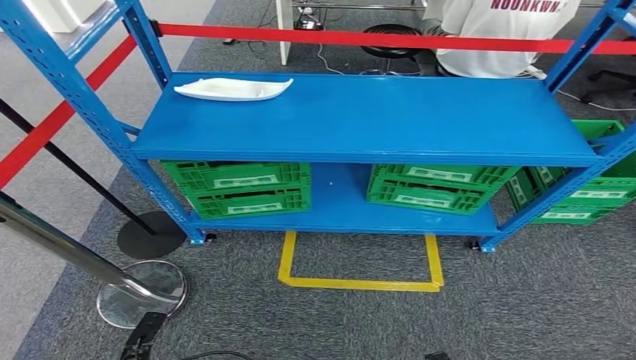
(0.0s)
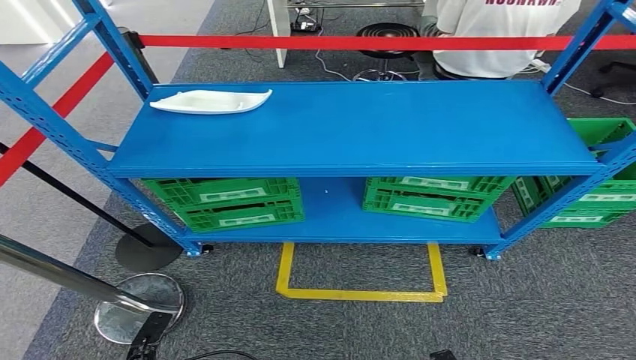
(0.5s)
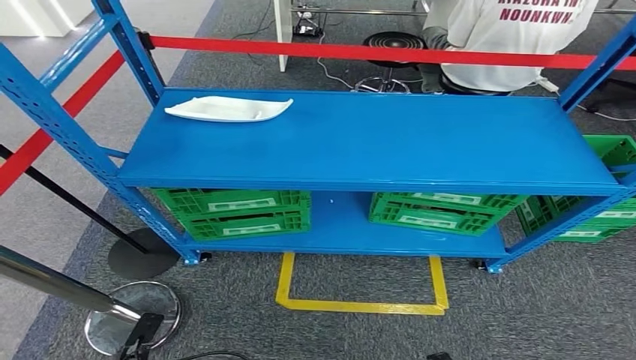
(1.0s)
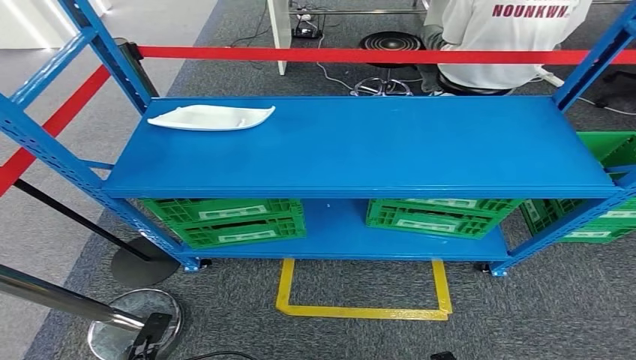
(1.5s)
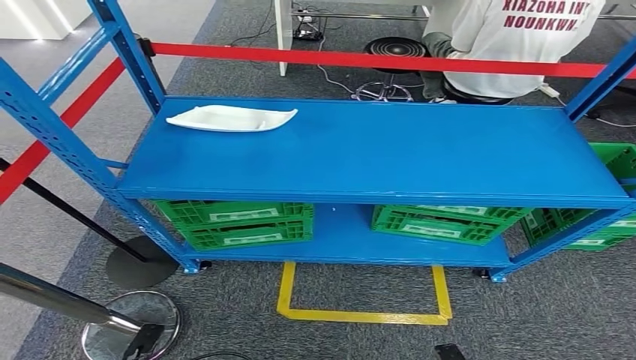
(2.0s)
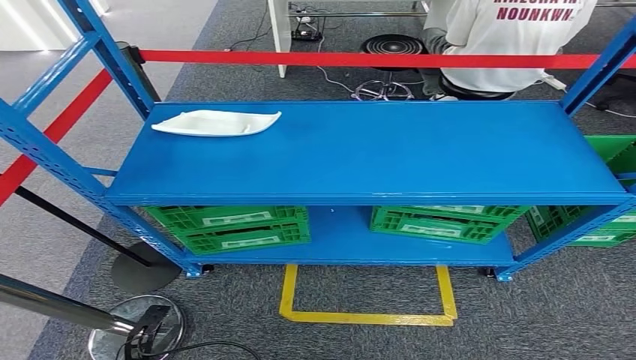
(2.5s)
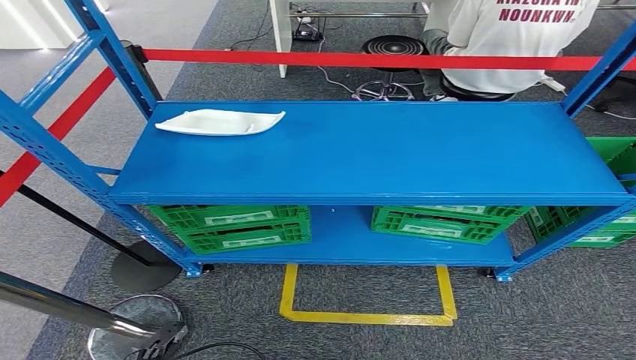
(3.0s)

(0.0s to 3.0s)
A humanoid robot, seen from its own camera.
Step, 0.0s - 3.0s: Move to the initial position at the workbench.
